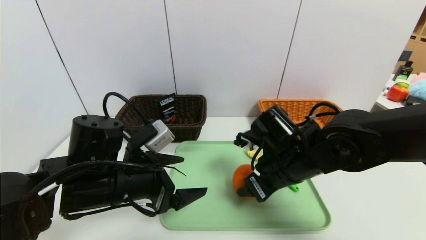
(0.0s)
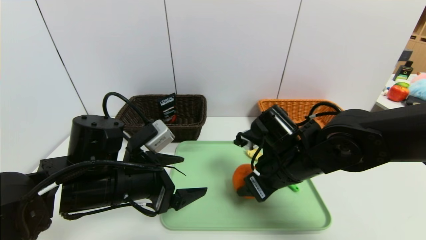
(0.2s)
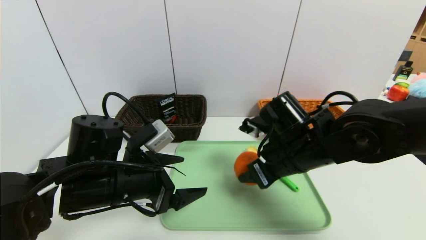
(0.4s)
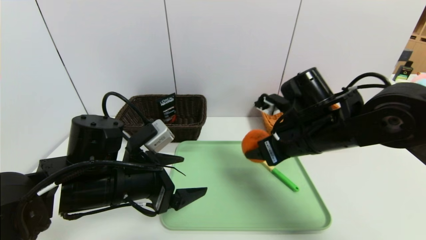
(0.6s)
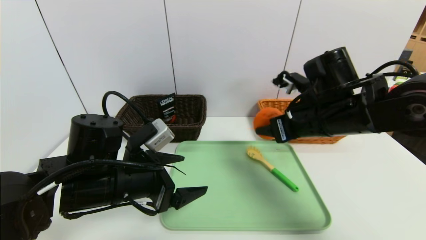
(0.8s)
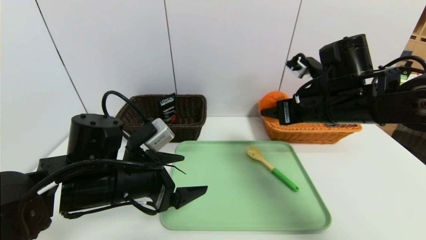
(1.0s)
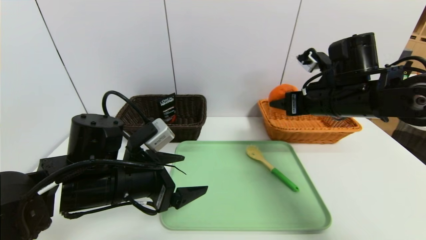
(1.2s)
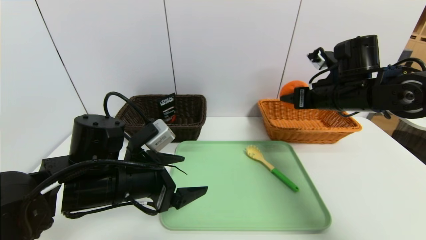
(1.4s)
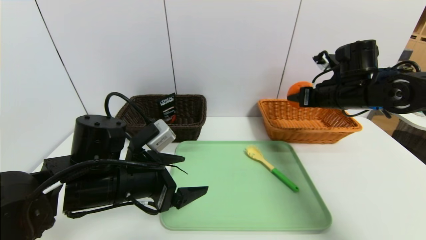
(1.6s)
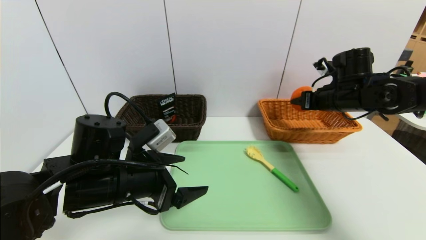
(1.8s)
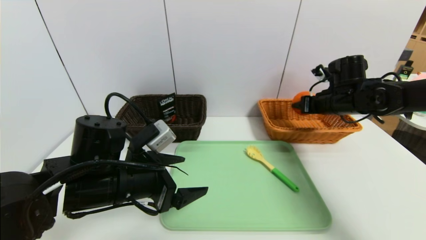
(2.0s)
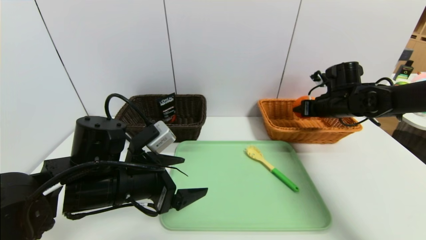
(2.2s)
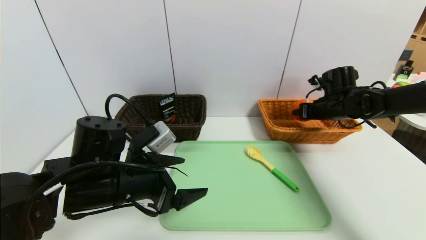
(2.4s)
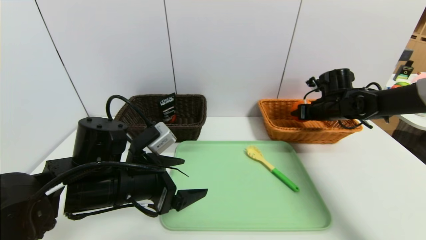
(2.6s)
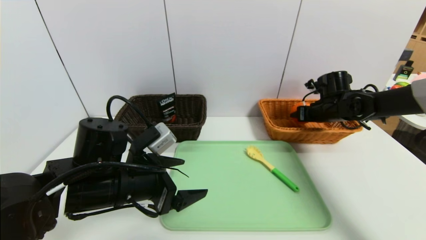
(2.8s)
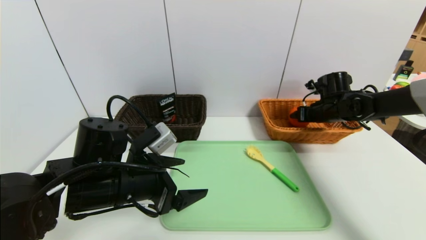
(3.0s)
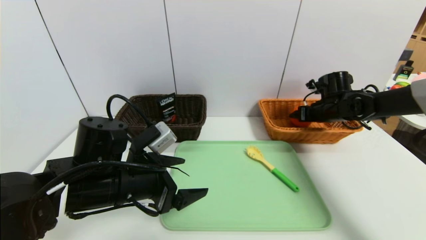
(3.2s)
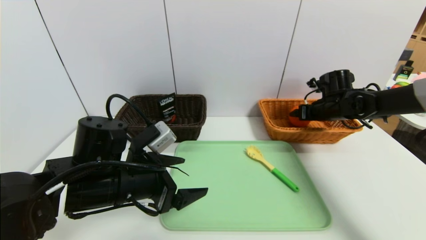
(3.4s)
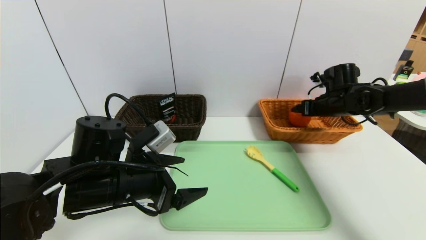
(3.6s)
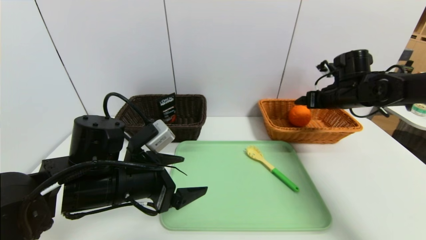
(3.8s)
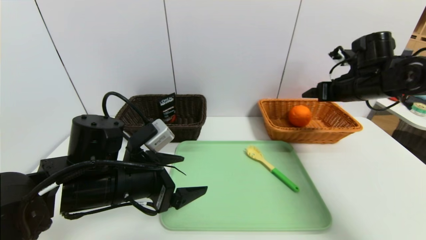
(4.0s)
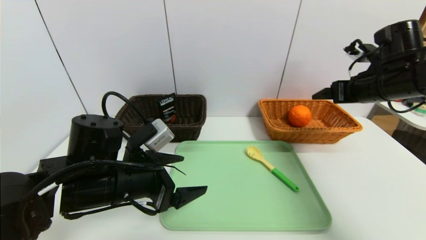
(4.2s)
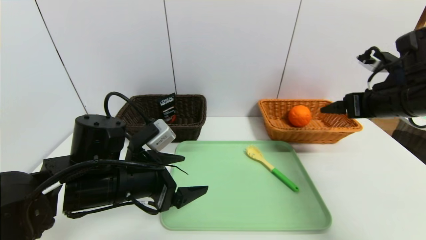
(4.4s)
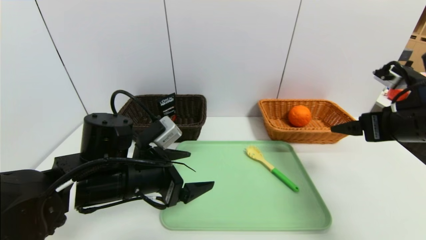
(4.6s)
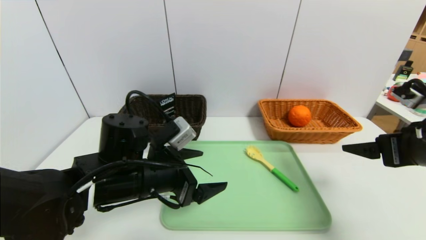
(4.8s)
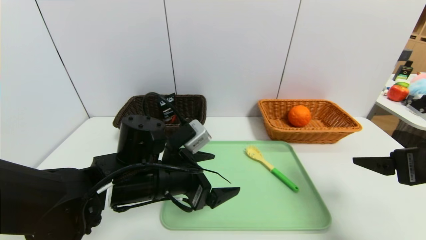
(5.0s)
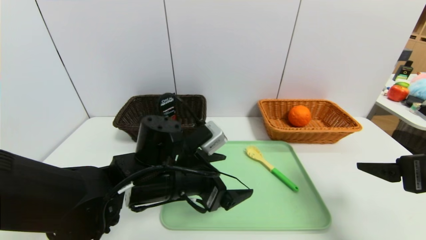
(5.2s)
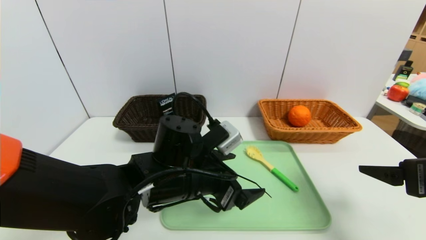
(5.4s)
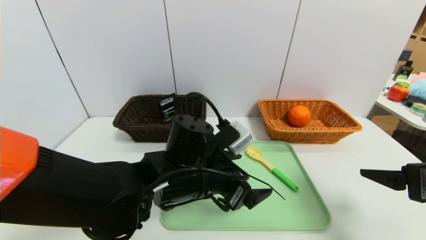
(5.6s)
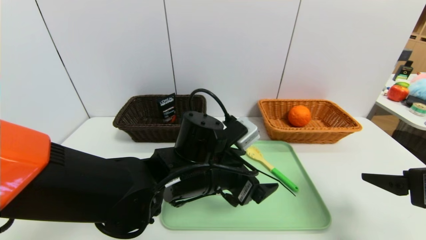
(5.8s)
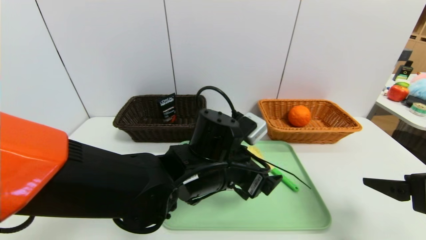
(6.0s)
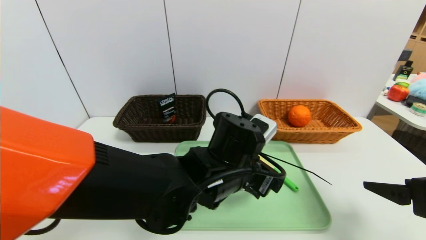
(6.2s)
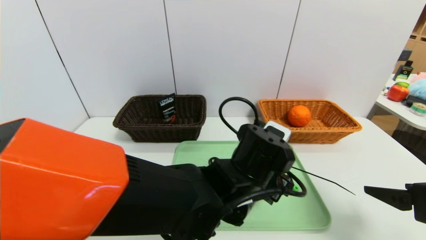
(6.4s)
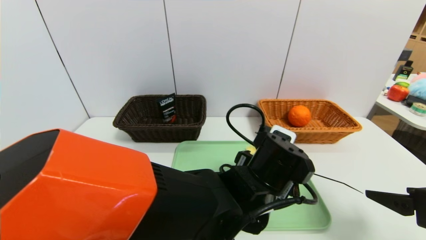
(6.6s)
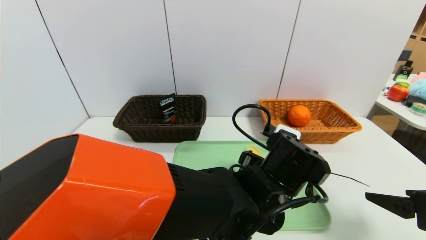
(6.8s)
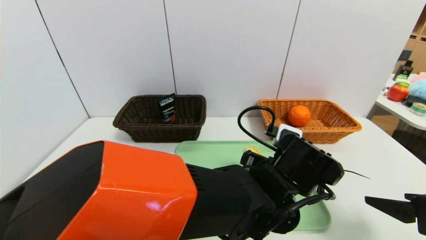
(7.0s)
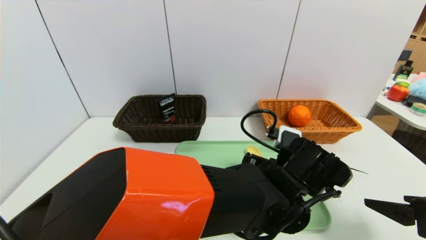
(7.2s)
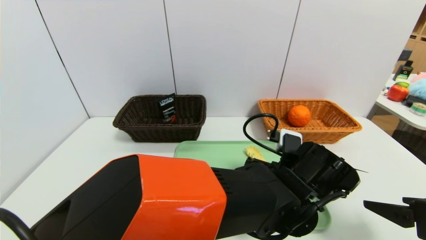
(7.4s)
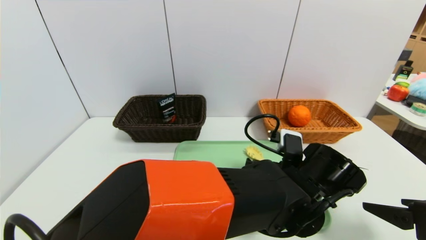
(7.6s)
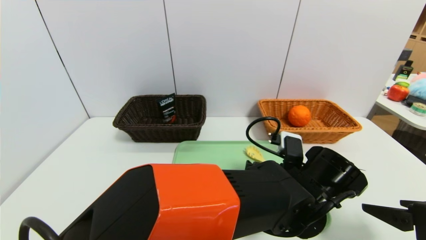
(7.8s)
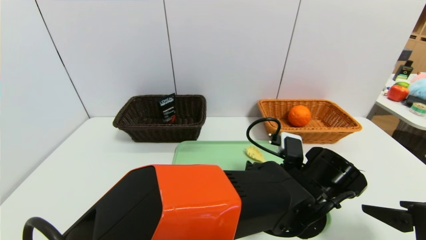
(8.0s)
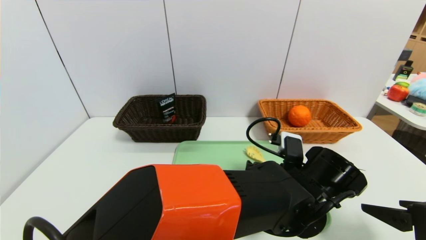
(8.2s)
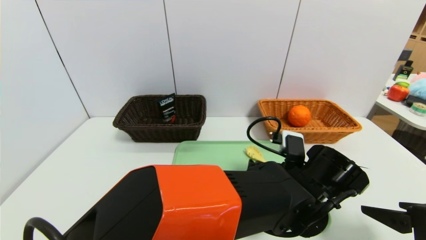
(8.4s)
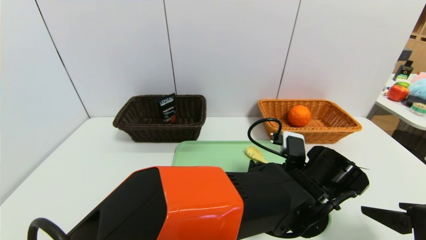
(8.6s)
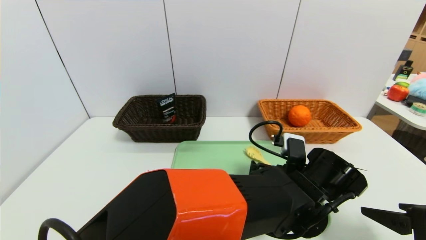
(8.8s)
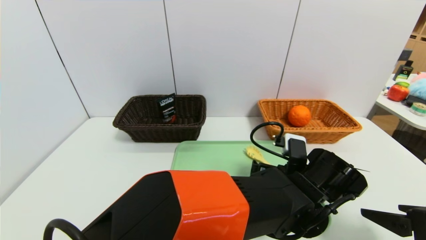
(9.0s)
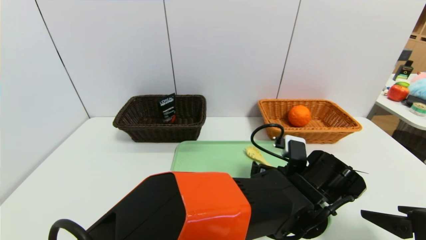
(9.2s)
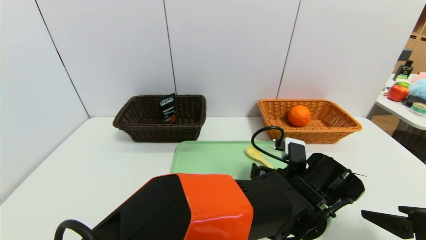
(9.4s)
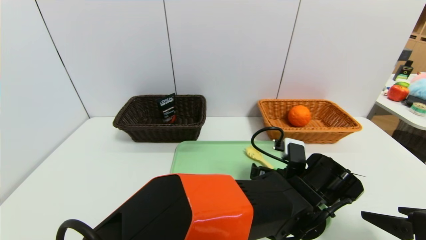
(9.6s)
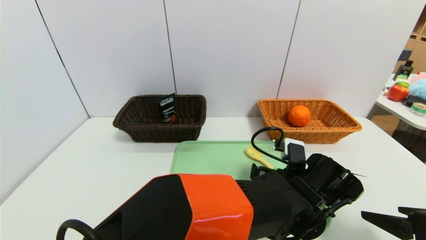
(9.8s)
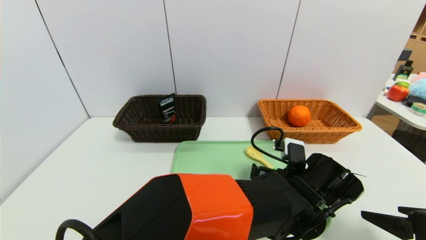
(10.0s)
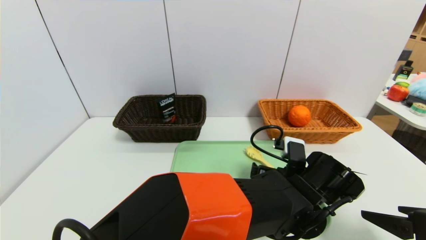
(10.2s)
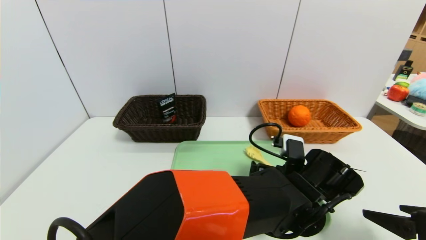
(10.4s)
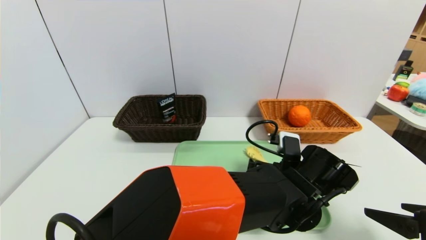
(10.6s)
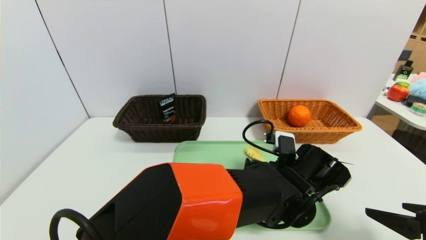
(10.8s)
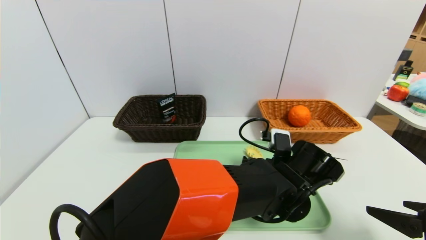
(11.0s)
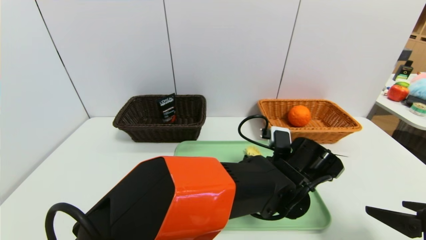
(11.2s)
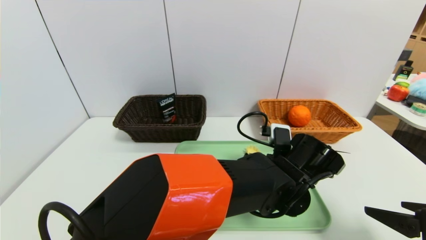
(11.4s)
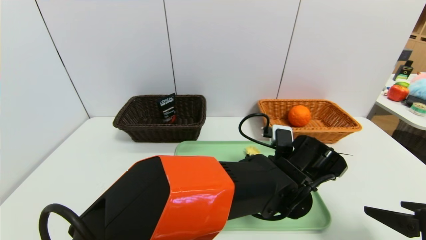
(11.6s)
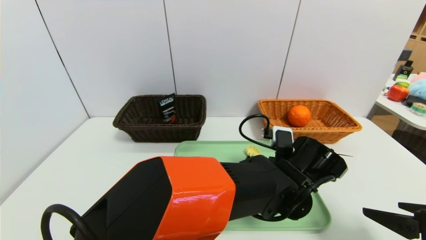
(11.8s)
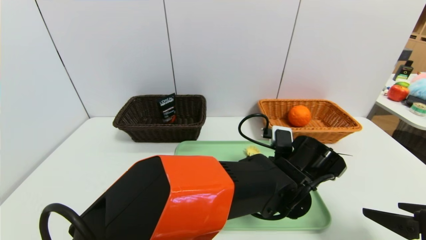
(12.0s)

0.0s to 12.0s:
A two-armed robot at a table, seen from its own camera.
Task of the whole recording: place the food in the right basket with the right gripper, and place the non food items in the left basket with the left gripper.
Step, 0.0s to 3.2s: Grasp the orange and put it in the right basket.
0.0s to 1.6s: The right gripper is displaced to the right, forward and upward by about 20 cm.
1.6s to 3.0s: The right gripper travels downward and forward by about 10 cm, and opens its fingers.
3.0s to 4.4s: The right gripper shifts some 20 cm backward and upward, and opens its fingers.
4.4s to 6.0s: The left gripper is displaced to the right by some 15 cm. Meanwhile the right gripper goes roughly 15 cm backward.
6.0s to 7.6s: The left gripper shifts some 15 cm to the right.
7.6s to 9.0s: The grippers make only small movements.
9.0s to 10.4s: The two grippers keep their place.
10.4s to 12.0s: The grippers move only a little.

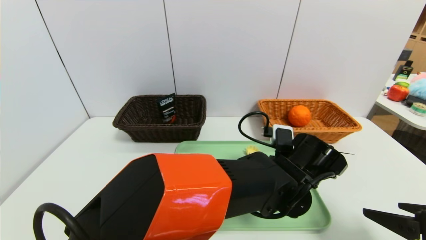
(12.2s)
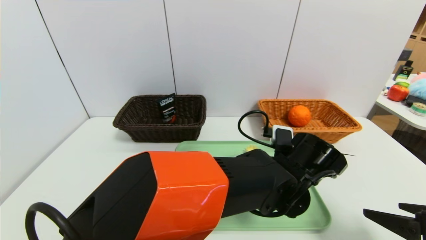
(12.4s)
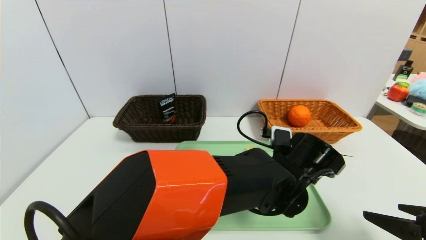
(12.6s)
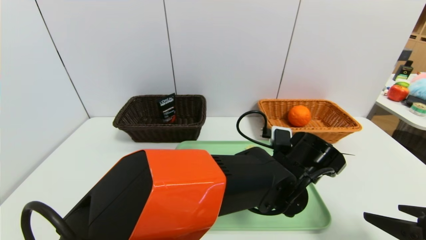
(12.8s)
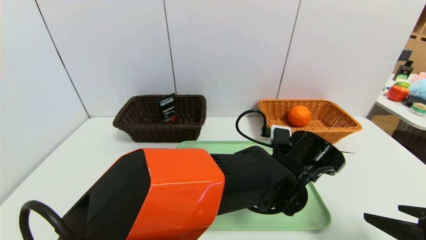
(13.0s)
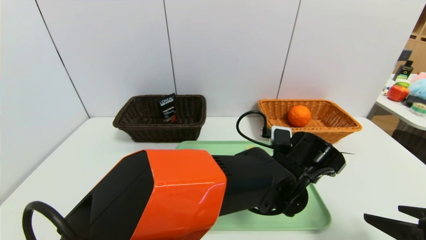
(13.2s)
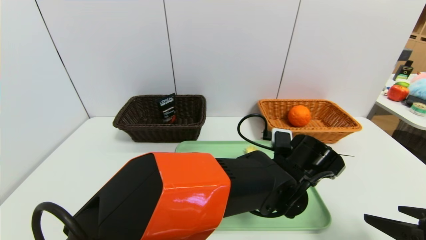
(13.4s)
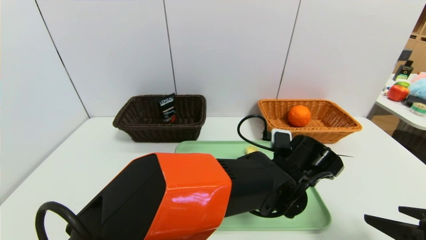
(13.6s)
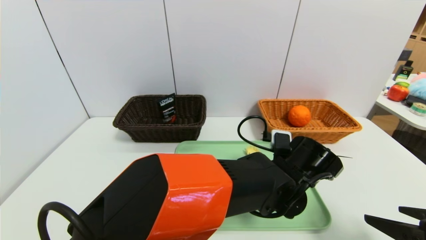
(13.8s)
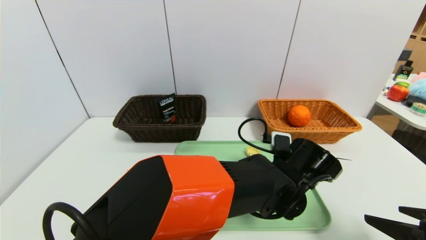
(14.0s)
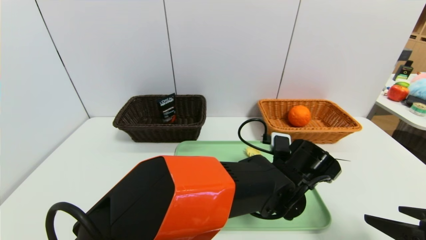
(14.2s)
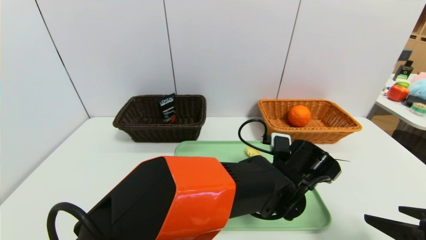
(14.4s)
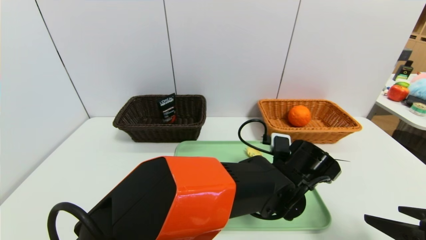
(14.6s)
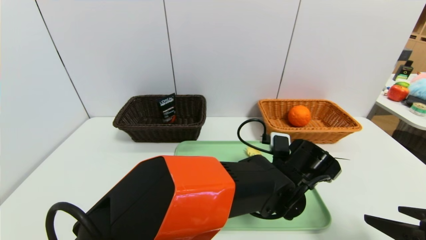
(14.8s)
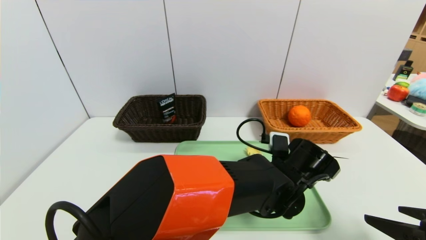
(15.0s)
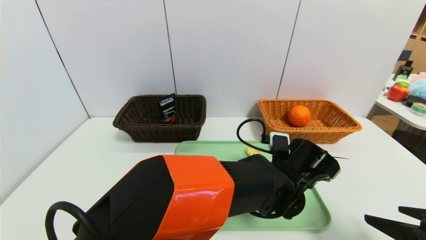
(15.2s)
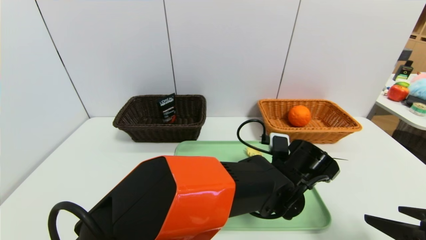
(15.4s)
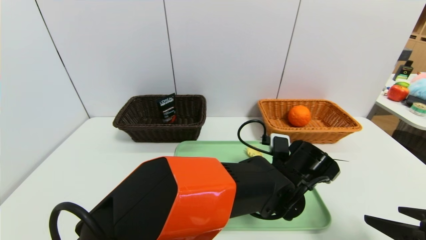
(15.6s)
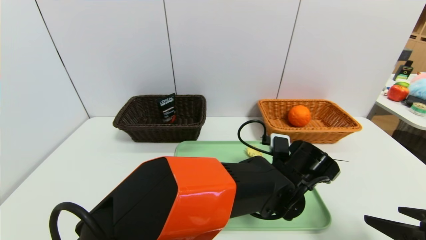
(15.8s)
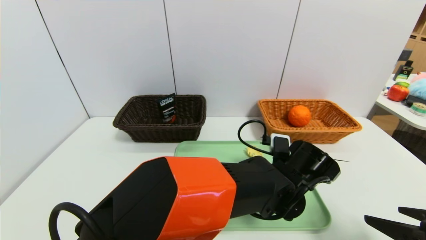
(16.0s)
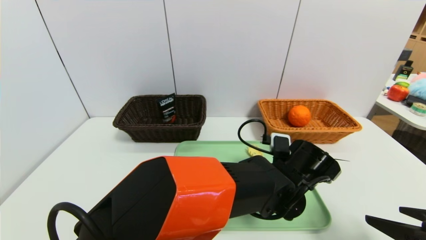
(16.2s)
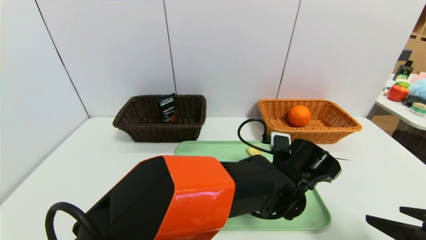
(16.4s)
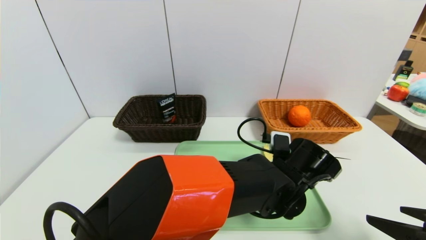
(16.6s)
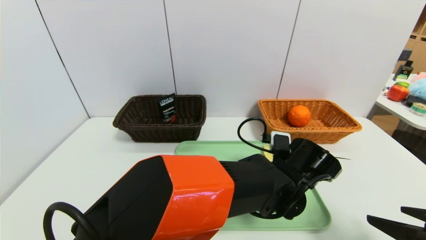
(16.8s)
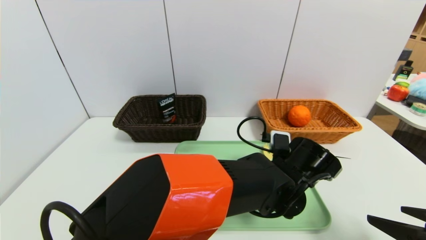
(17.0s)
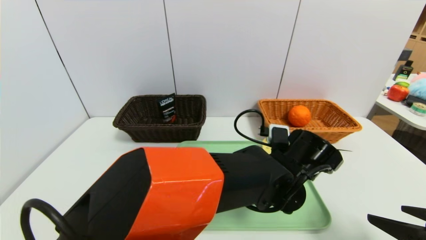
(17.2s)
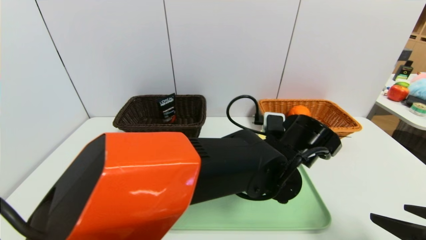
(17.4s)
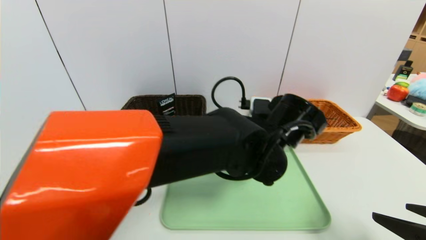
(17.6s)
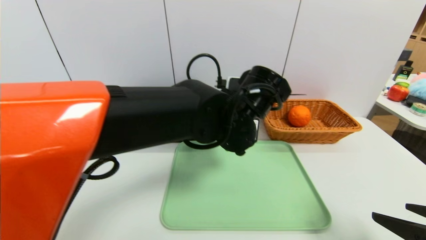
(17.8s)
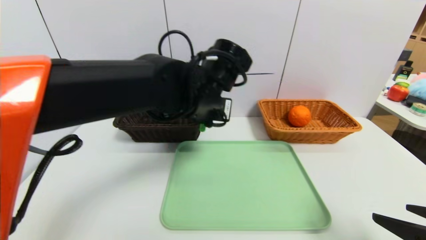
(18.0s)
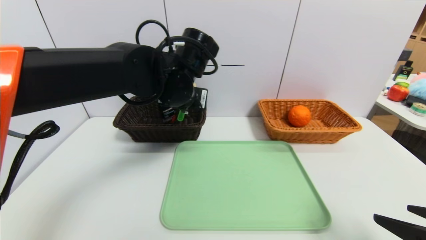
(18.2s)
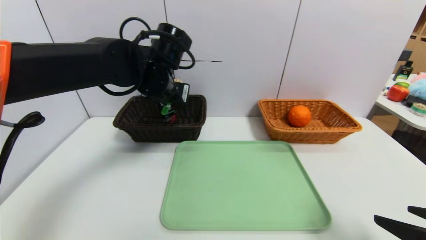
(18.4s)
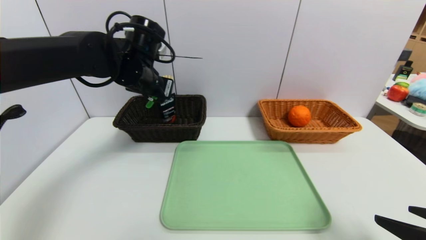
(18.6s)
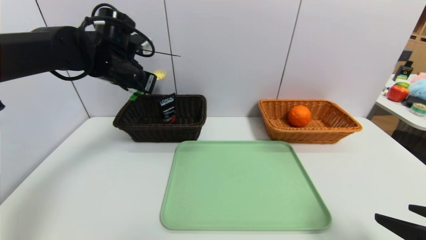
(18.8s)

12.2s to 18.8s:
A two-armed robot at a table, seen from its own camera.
Task of the whole recording: place the food in the right basket with the right gripper, and place the non food items in the left basket with the left gripper.
12.2s to 13.8s: The grippers make only small movements.
13.8s to 15.4s: Both grippers stay about where they are.
15.4s to 17.2s: The left gripper closes up.
17.2s to 18.8s: The left gripper heads to the left, upward and forward, covering some 40 cm.
